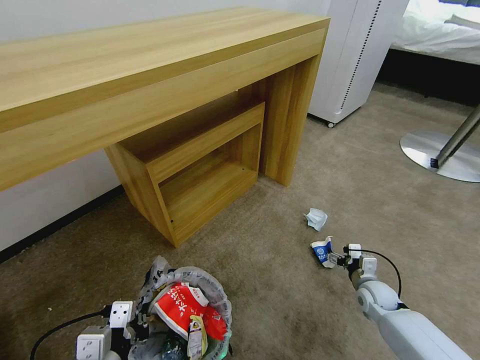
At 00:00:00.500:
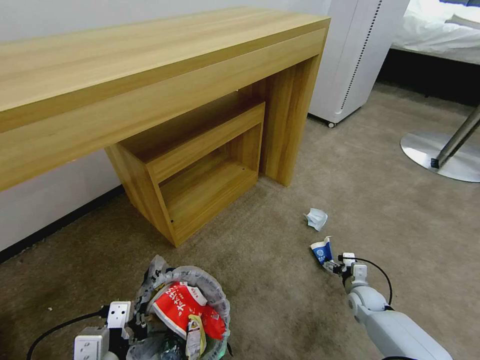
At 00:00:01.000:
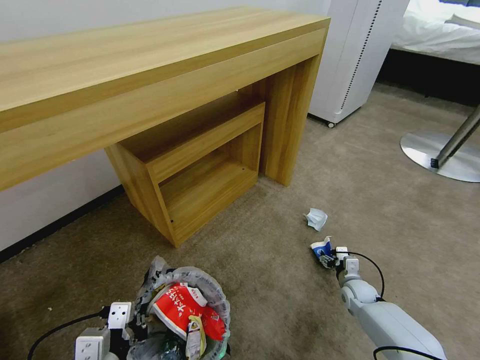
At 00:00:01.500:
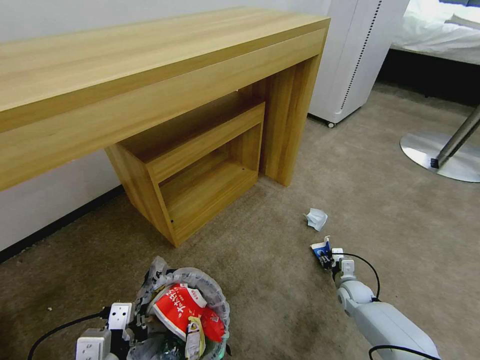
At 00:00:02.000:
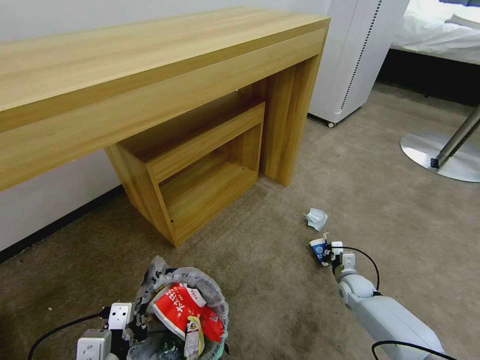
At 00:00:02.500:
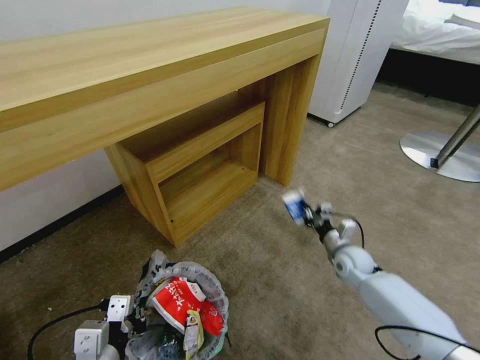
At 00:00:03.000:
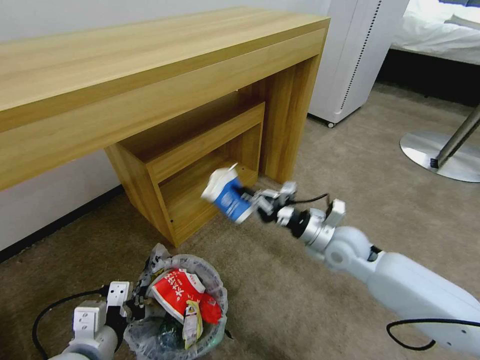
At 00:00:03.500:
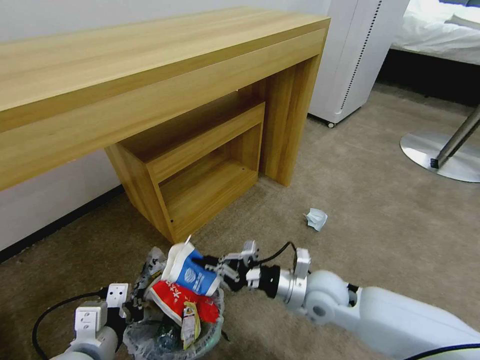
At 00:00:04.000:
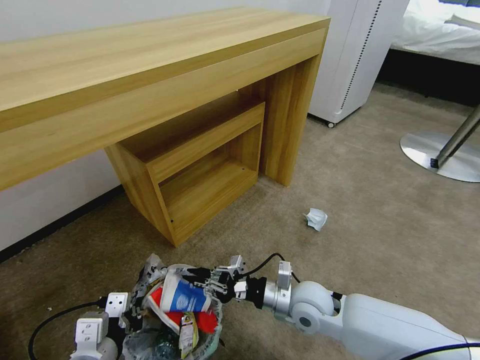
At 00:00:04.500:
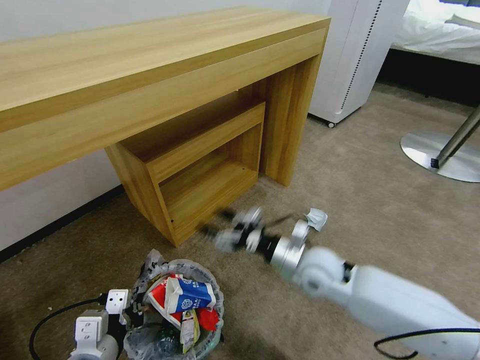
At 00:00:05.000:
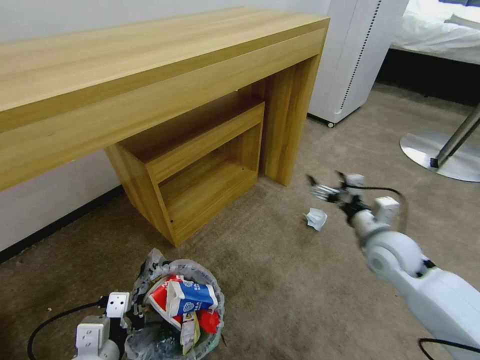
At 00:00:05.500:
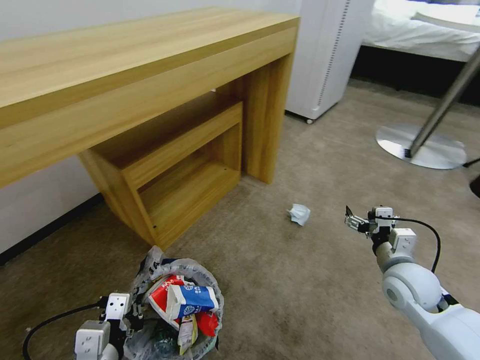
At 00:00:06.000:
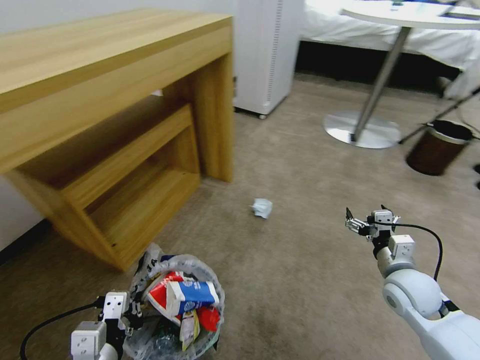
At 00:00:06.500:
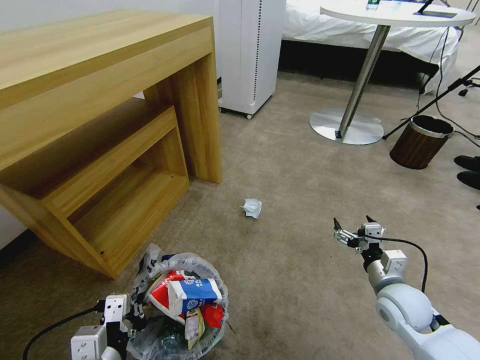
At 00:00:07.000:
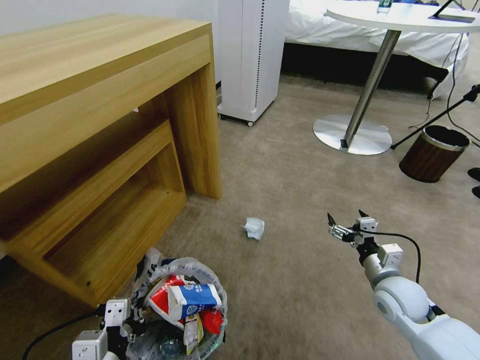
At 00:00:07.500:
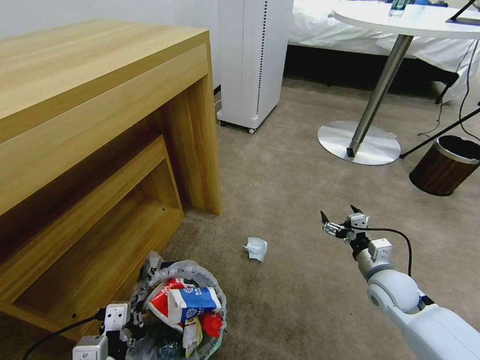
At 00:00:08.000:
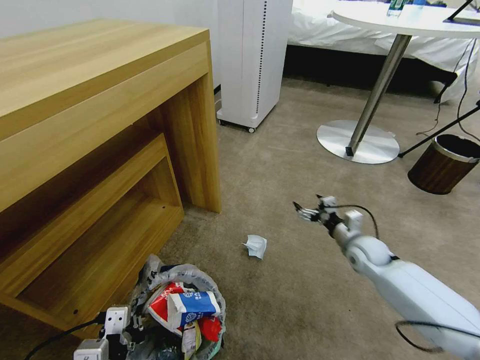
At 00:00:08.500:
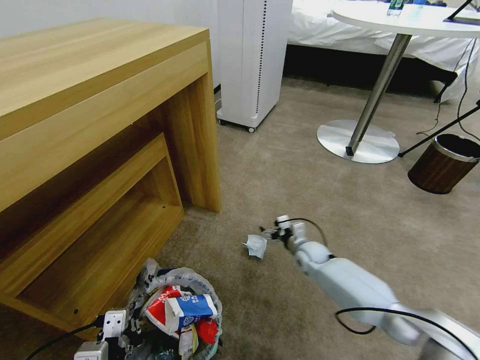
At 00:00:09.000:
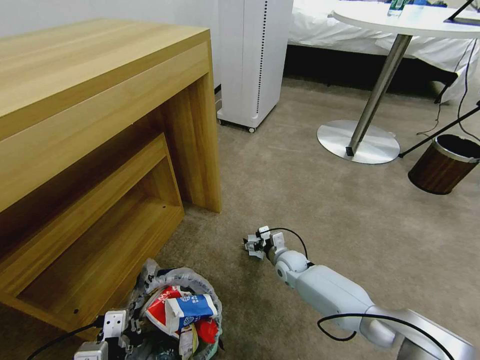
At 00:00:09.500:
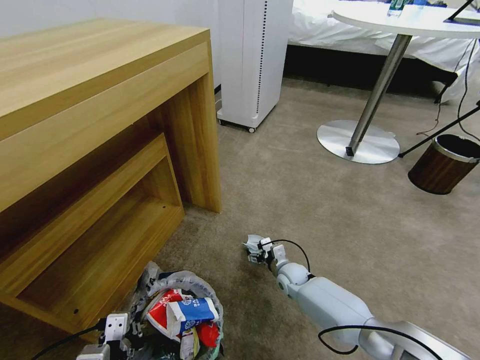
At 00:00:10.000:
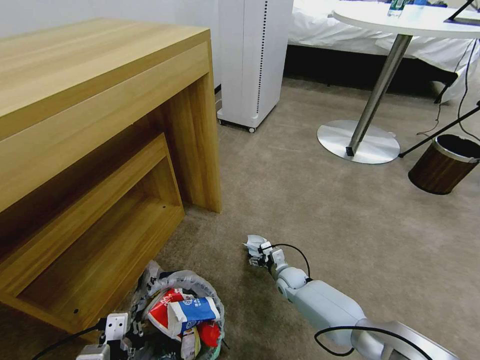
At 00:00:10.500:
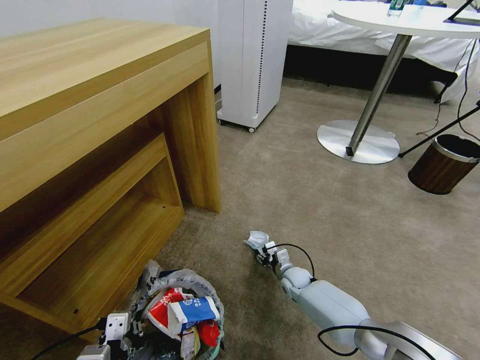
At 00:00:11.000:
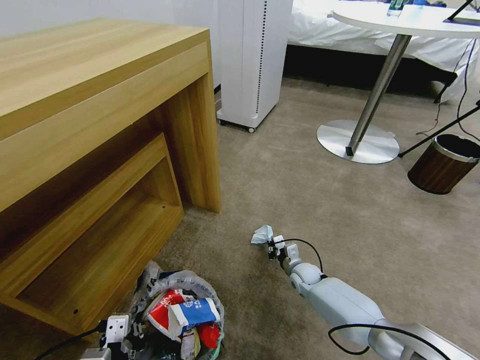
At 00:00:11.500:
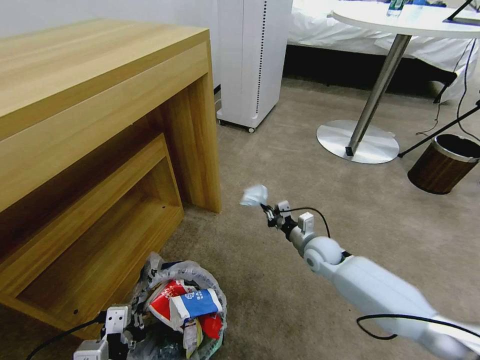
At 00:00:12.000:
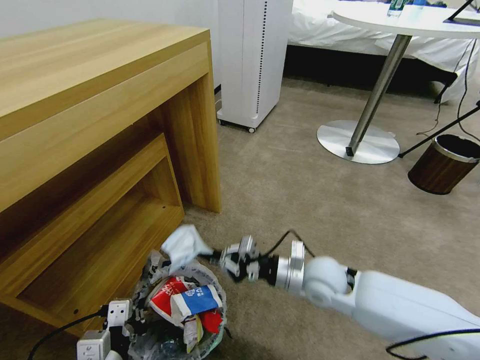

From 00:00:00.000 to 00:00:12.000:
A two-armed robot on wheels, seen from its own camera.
Task of the whole recording: Pick up the trash bin and place the garbage on the floor into it.
From 00:00:00.000 to 00:00:02.000: The right gripper goes approximately 5 cm downward, and closes.
From 00:00:02.000 to 00:00:04.000: The right gripper is displaced to the left, upward and backward by about 30 cm.
From 00:00:04.000 to 00:00:06.000: The right gripper goes roughly 20 cm to the right, and opens.
From 00:00:06.000 to 00:00:08.000: The right gripper travels forward and downward by about 15 cm.
From 00:00:08.000 to 00:00:10.000: The right gripper moves downward and to the left, roughly 25 cm.
From 00:00:10.000 to 00:00:12.000: The right gripper is displaced upward and backward by some 25 cm, and closes up.

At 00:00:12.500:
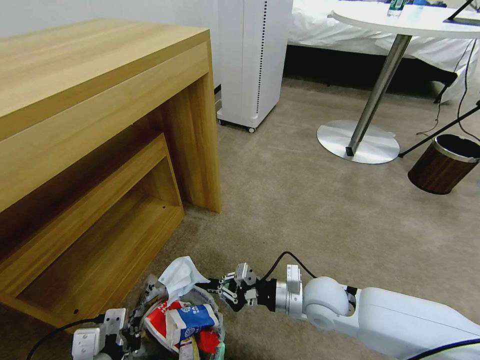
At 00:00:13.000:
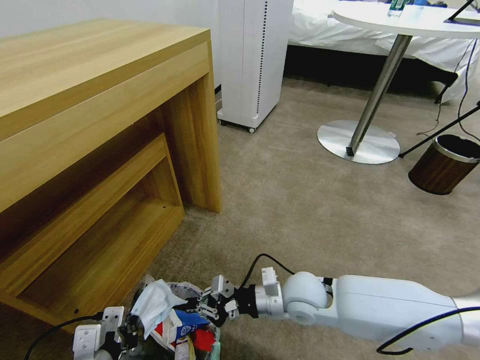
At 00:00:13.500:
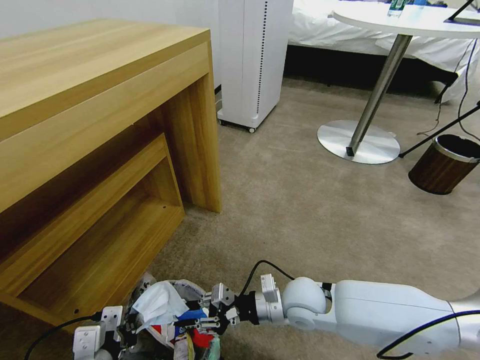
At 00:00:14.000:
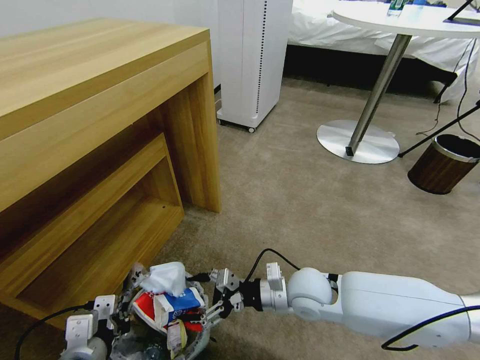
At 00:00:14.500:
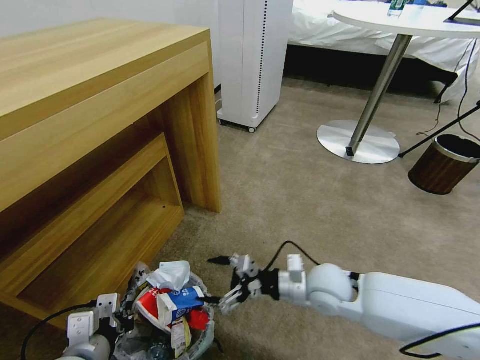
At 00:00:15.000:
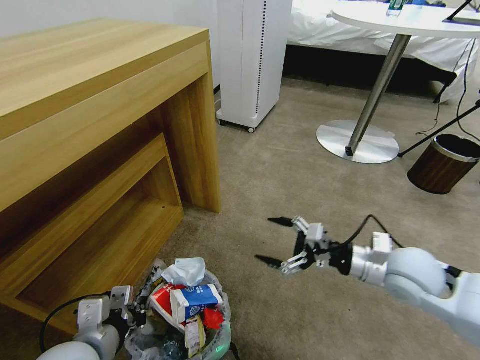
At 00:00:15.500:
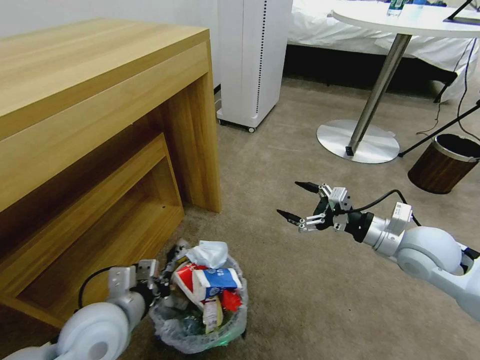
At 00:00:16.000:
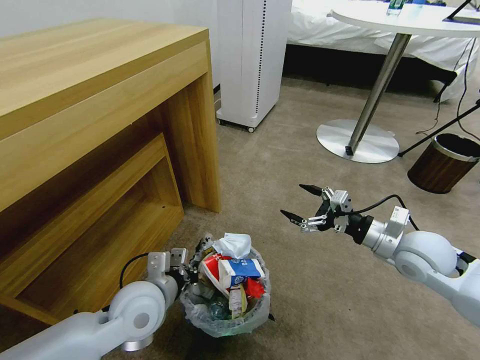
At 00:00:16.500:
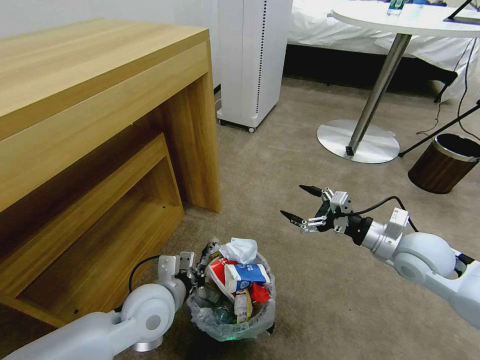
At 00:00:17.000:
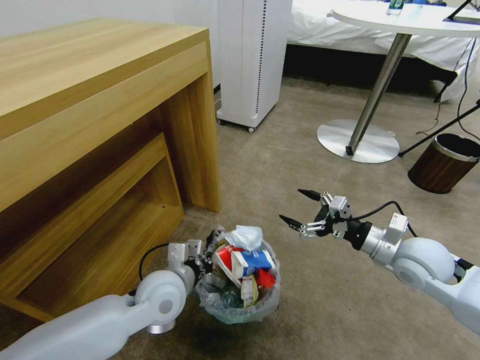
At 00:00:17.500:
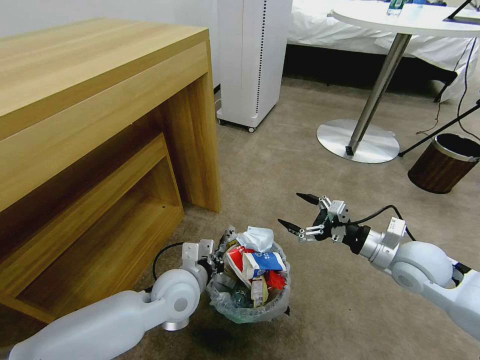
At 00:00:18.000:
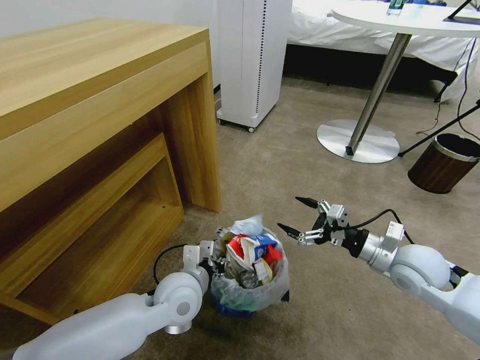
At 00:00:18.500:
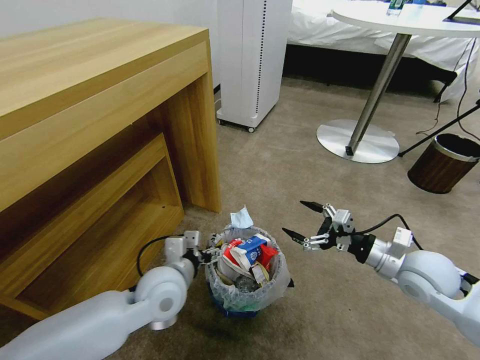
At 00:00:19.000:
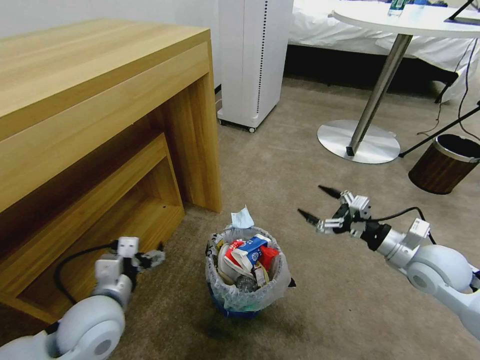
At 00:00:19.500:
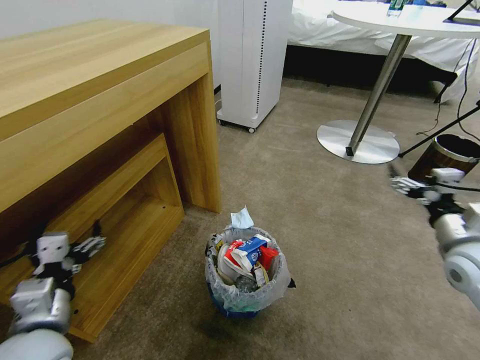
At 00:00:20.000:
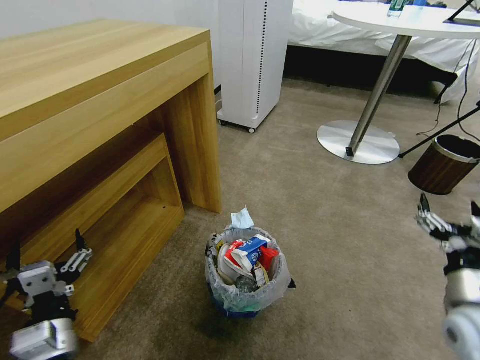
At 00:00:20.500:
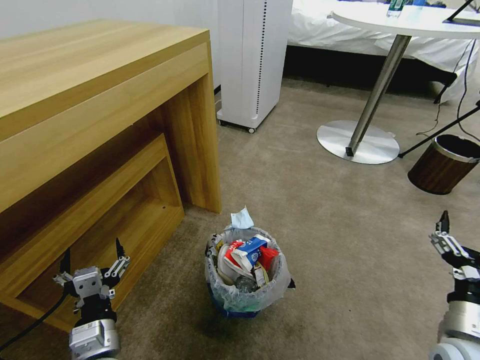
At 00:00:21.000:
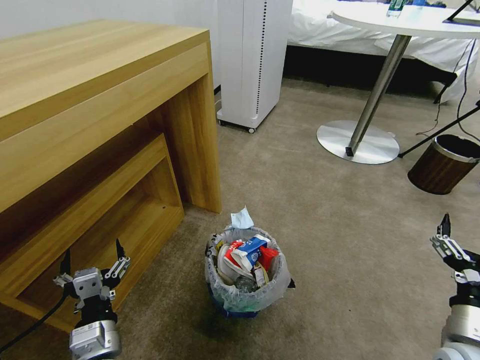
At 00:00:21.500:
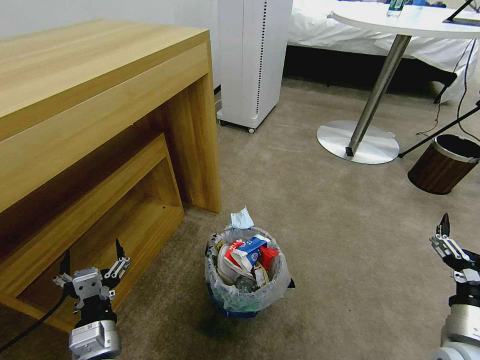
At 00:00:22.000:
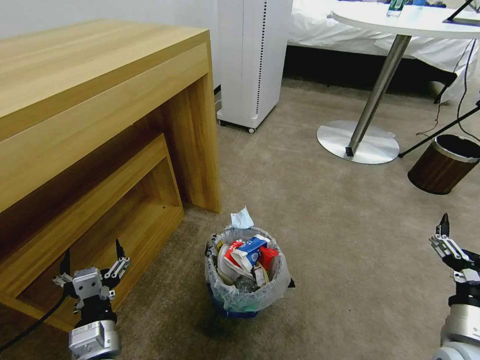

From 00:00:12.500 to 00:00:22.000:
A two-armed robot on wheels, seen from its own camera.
Task of the whole recording: Pick up the trash bin and place the garbage on the floor into it.
From 00:00:12.500 to 00:00:14.500: The right gripper opens up.
From 00:00:14.500 to 00:00:16.500: The left gripper heads forward and to the right, covering roughly 15 cm; the right gripper moves to the right and upward, approximately 20 cm.
From 00:00:16.500 to 00:00:18.000: The left gripper moves some 5 cm, and opens its fingers.
From 00:00:18.000 to 00:00:20.000: The right gripper shifts roughly 10 cm backward; the left gripper travels backward and to the left by approximately 20 cm, and opens its fingers.
From 00:00:20.000 to 00:00:22.000: The right gripper shifts by approximately 5 cm. Meanwhile the left gripper changes place by approximately 5 cm.
